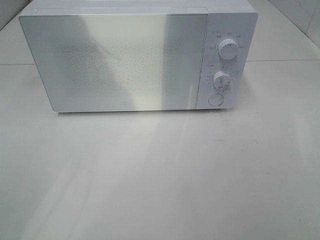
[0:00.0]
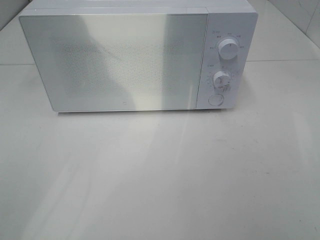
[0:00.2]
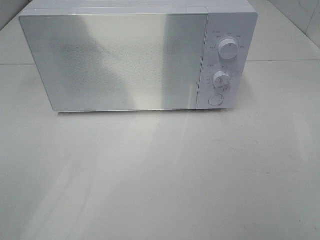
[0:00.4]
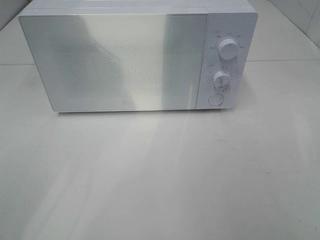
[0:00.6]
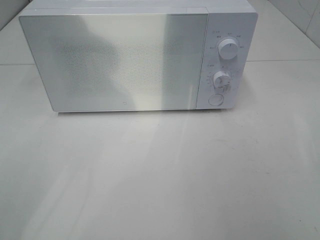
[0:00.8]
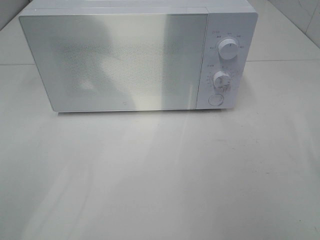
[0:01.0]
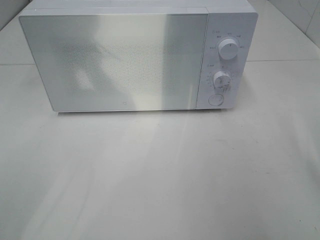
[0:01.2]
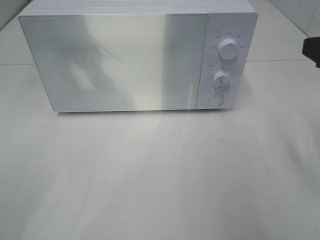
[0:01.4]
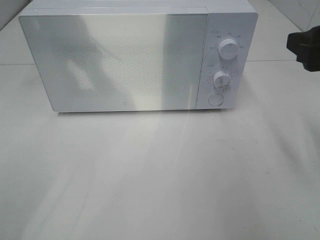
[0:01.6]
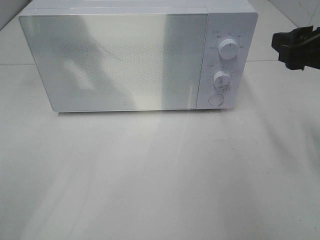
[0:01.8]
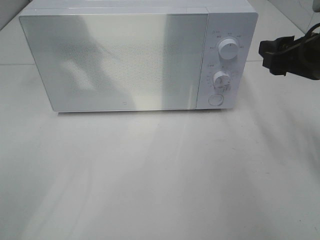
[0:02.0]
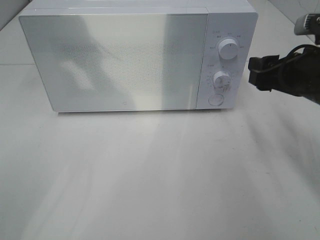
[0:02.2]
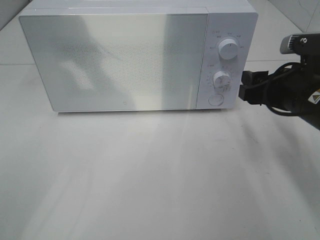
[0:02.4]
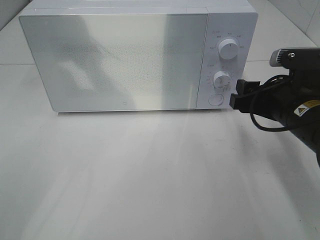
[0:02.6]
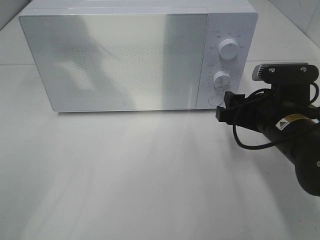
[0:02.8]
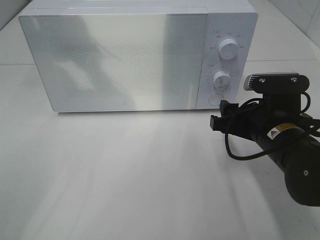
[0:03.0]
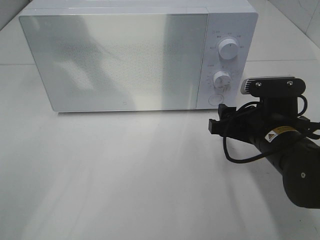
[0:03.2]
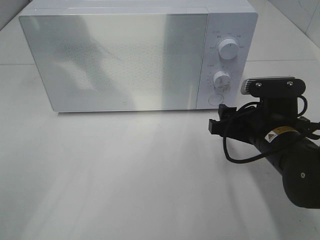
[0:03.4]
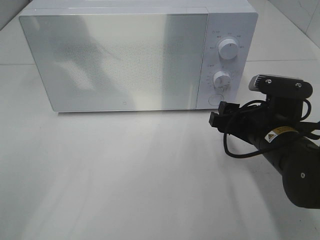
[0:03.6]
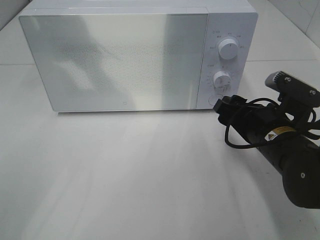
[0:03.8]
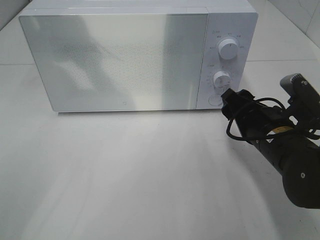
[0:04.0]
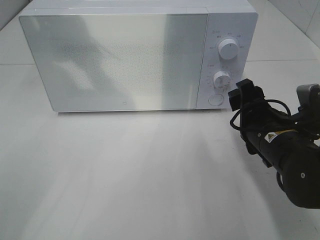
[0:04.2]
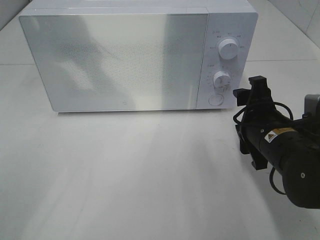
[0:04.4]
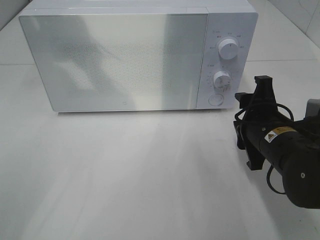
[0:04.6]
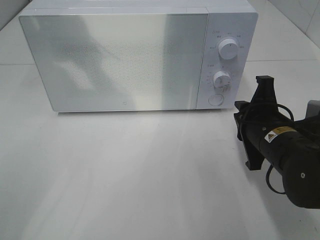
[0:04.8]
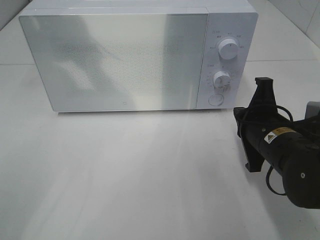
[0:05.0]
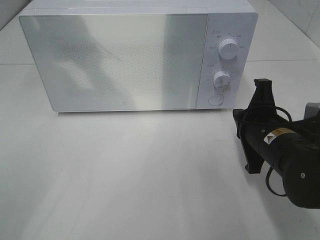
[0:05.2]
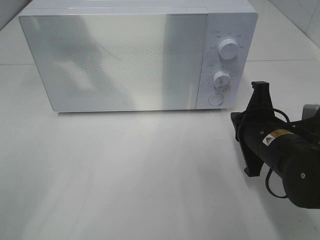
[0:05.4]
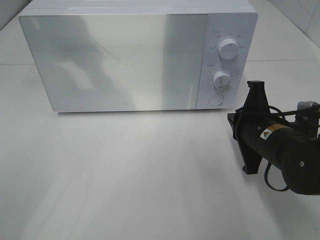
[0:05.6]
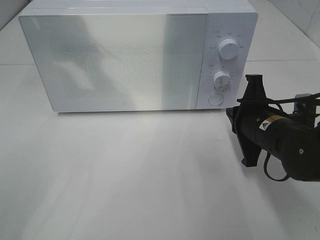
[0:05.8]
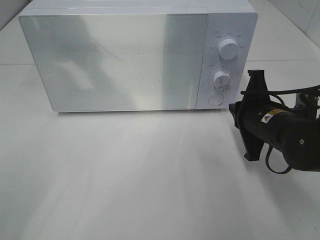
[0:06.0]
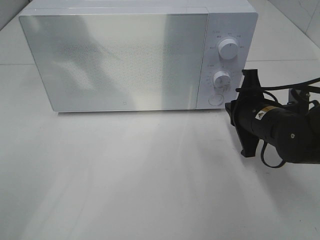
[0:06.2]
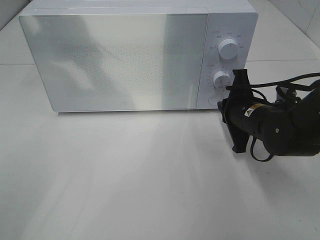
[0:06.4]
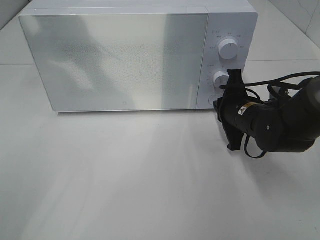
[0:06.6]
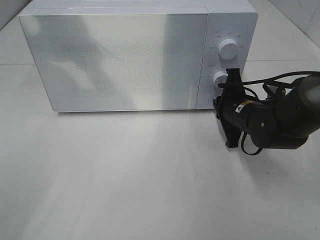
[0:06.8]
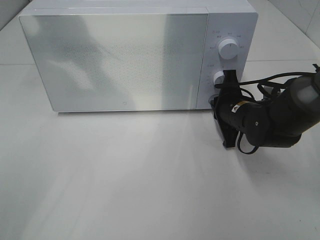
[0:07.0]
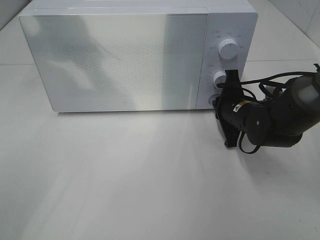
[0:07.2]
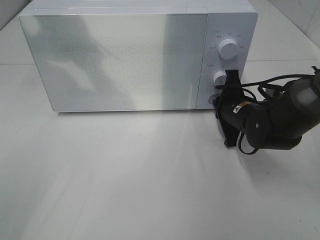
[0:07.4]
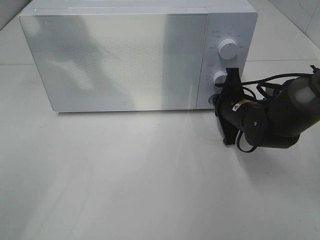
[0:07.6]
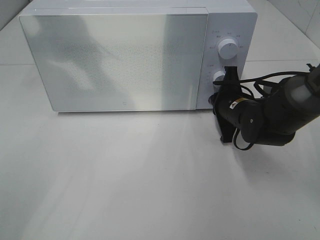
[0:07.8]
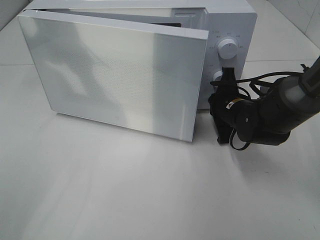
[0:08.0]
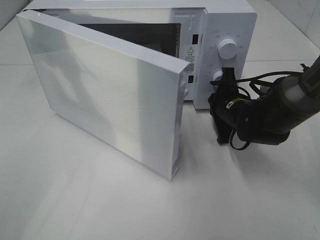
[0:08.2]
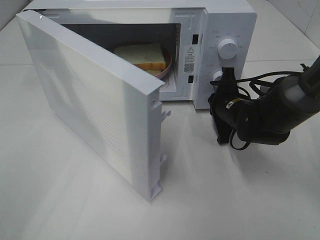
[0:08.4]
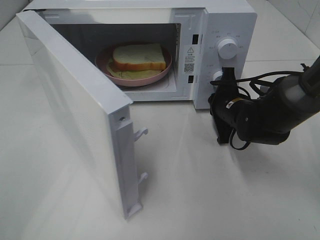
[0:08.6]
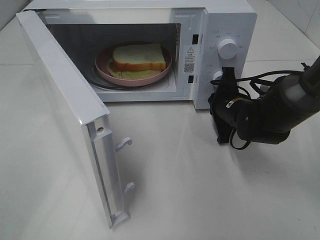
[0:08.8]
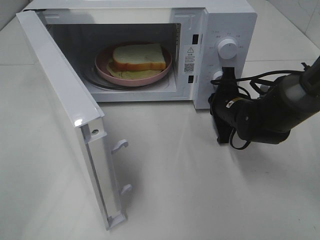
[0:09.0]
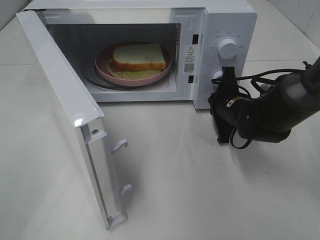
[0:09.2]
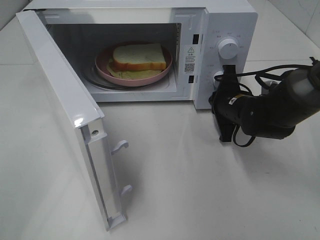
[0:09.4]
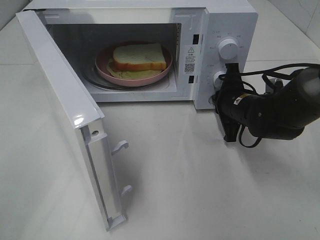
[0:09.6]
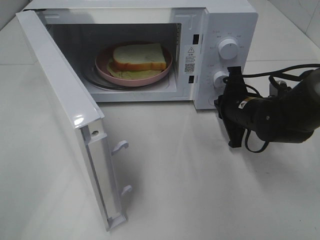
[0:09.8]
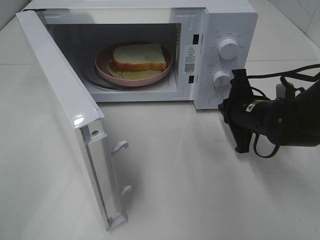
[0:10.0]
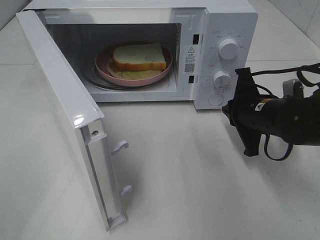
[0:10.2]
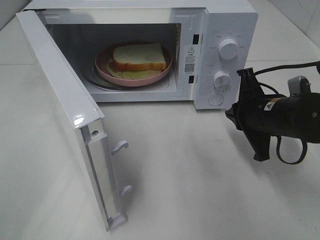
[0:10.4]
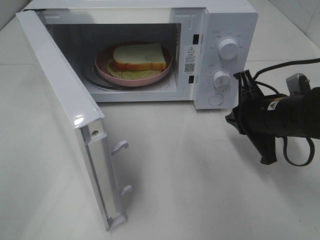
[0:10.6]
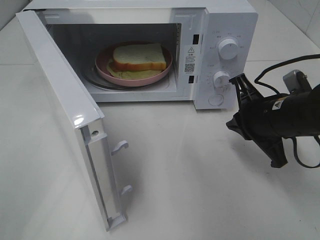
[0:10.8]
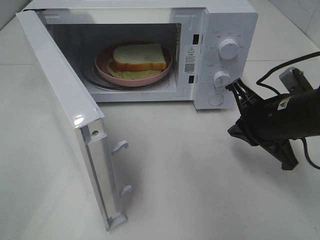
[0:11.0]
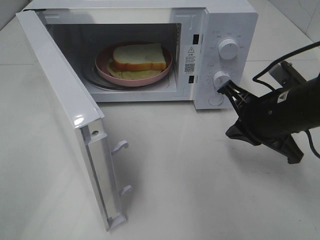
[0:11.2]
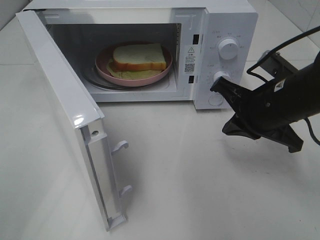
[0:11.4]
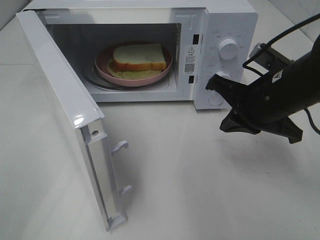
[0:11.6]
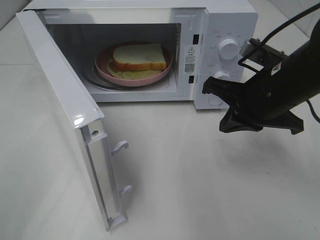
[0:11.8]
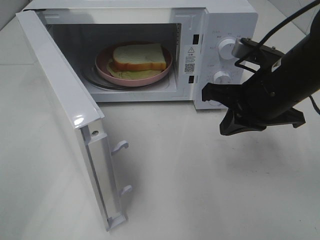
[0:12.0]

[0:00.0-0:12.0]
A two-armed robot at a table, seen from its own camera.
Task of the whole recording: Heat Sandwich.
Step, 0:00.0 to 0:10.0: Right hand: press the switch.
0:00.0 to 0:01.6: The right gripper travels forward by some 20 cm.
0:01.6 to 0:03.0: The right gripper travels downward and to the left by about 15 cm.
0:04.4 to 0:06.0: The right gripper closes up.
0:06.0 to 0:07.6: The right gripper shifts some 5 cm forward.
0:09.0 to 0:10.4: The right gripper goes approximately 10 cm backward and upward.
0:10.4 to 0:12.0: The right gripper travels upward by roughly 5 cm.

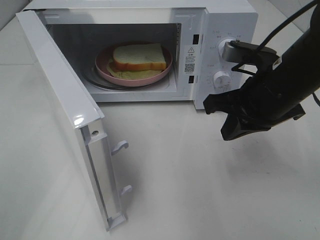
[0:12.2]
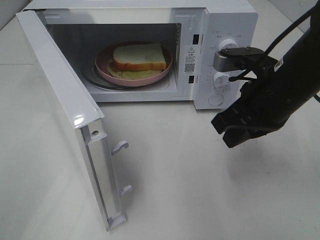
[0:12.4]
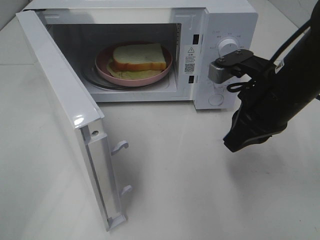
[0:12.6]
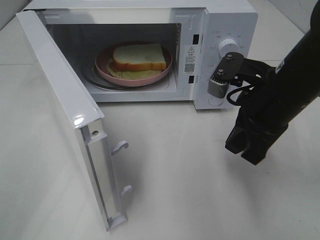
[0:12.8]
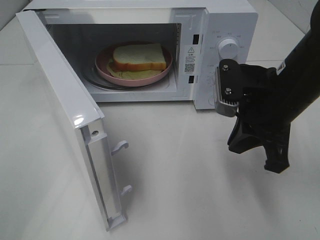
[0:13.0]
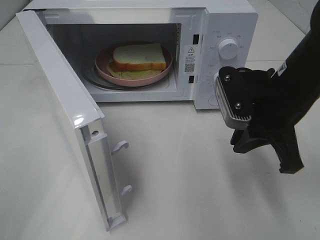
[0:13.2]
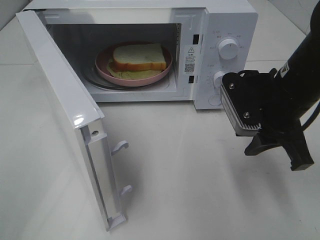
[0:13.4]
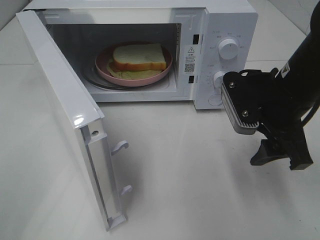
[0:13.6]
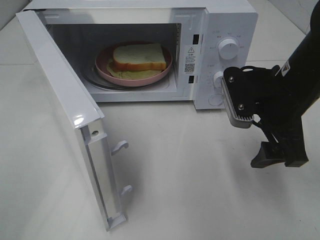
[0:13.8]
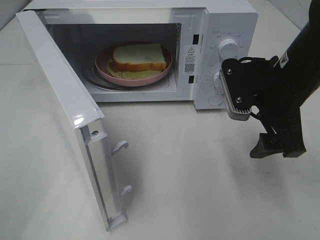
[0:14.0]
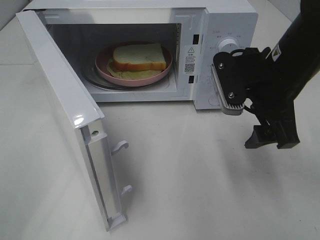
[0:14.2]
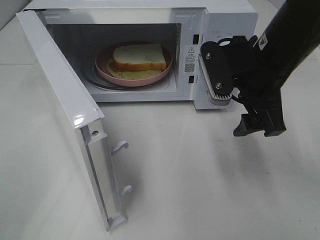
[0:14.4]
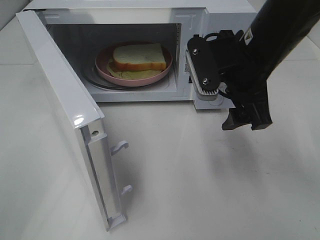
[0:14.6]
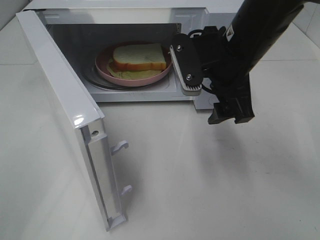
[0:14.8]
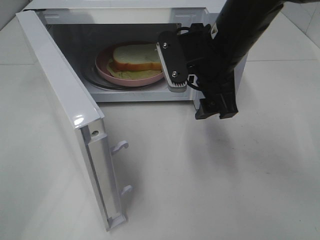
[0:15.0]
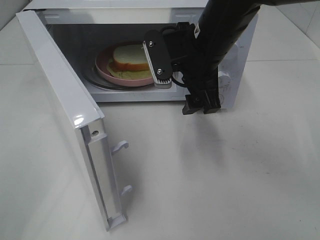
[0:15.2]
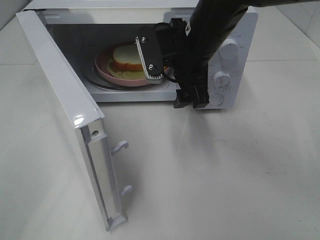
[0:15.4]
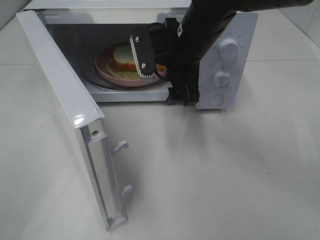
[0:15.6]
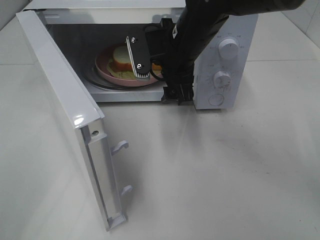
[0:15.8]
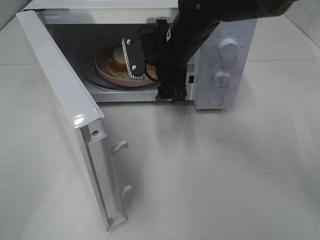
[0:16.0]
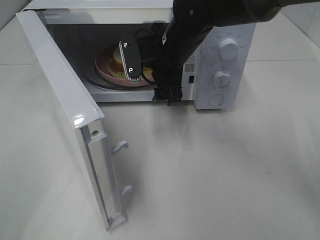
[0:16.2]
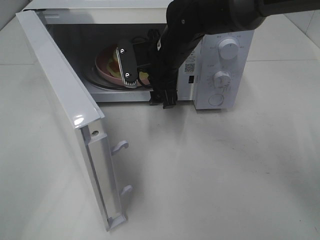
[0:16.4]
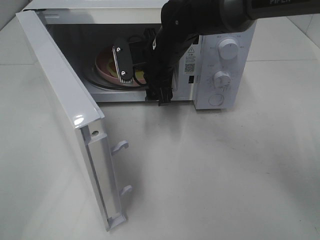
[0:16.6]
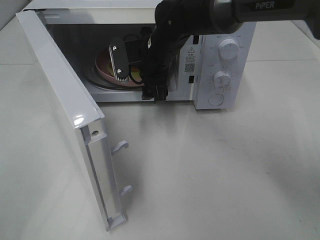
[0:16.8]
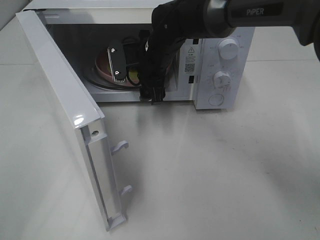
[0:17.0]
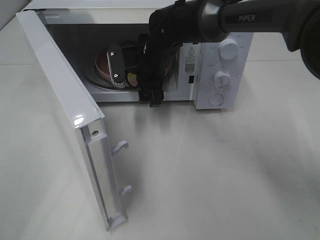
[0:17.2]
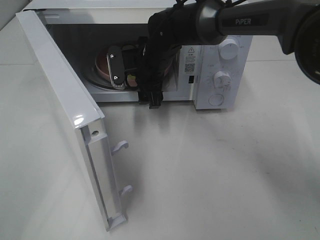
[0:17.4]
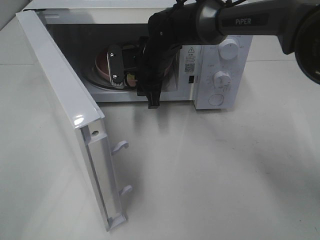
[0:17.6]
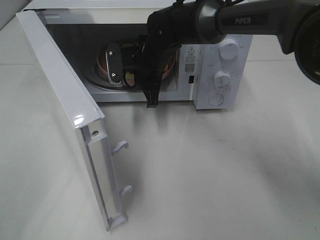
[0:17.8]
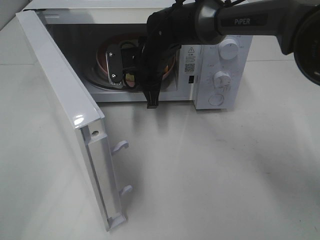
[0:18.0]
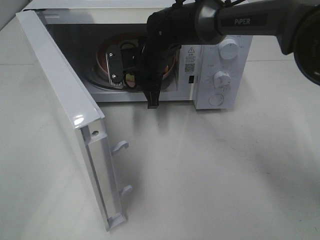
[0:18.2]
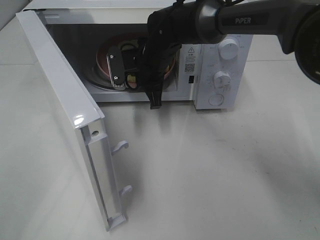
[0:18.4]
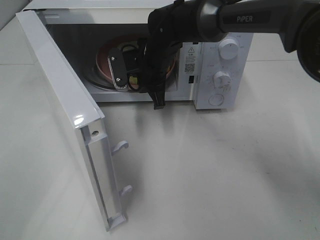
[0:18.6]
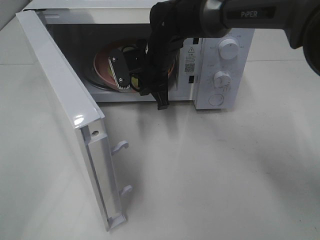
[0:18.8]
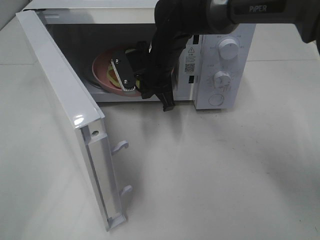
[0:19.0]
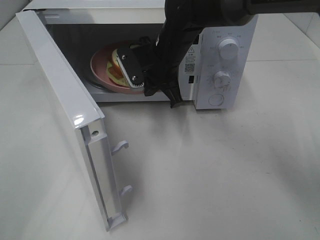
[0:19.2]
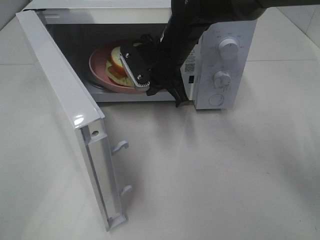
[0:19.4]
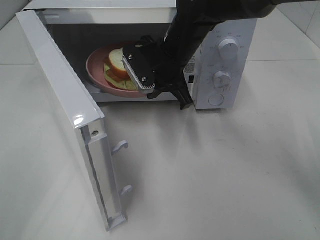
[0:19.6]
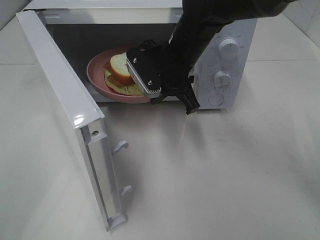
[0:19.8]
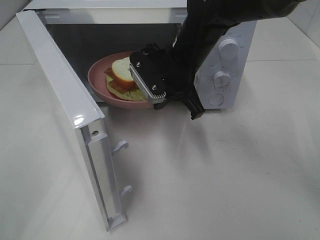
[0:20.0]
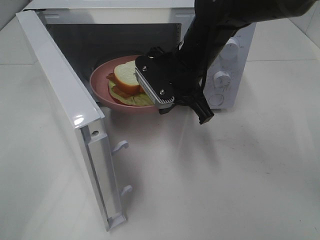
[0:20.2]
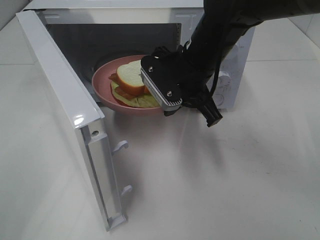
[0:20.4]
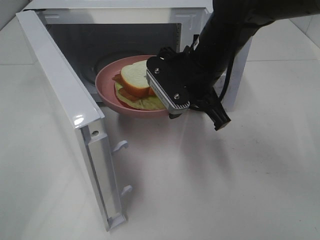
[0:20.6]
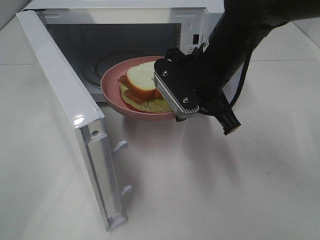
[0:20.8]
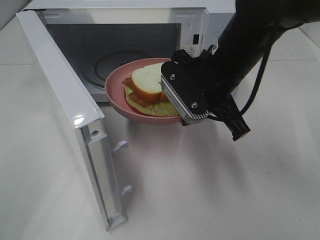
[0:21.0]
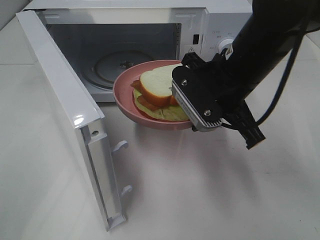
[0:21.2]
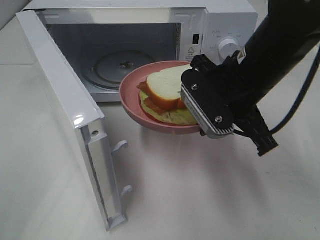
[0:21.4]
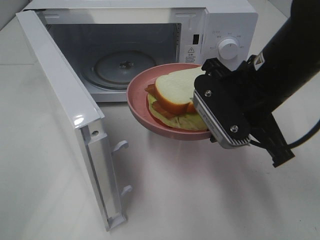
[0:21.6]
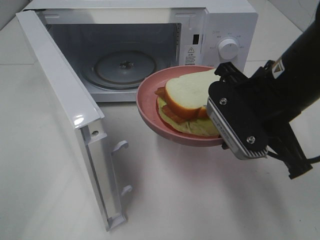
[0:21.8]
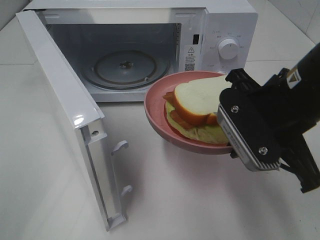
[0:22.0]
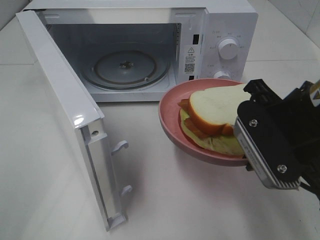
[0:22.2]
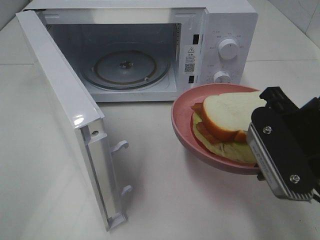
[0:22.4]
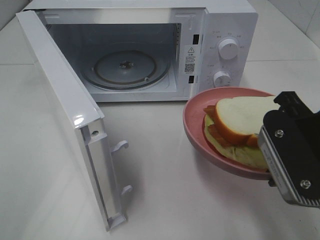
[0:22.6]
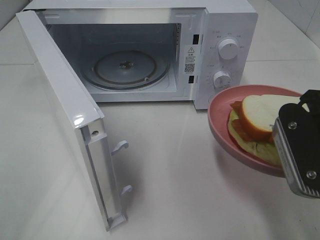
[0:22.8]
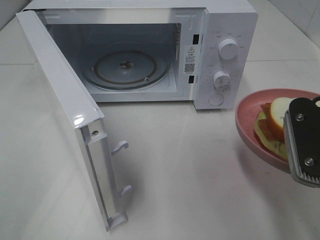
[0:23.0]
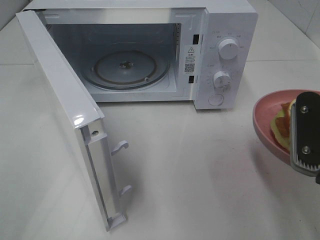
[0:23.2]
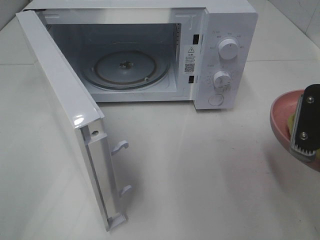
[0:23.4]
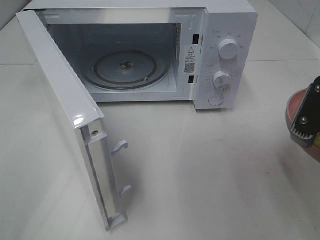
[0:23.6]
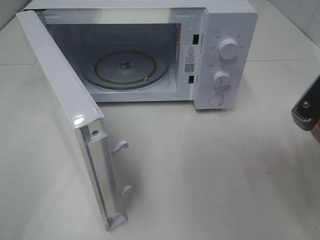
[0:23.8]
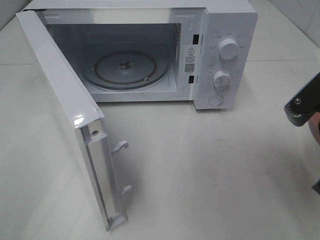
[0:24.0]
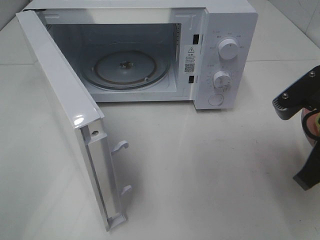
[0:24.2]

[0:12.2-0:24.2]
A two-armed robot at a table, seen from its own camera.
Task of the whole recording: Heat Sandwich.
Step, 0:12.2 to 0:18.0: Right hand: grab the plate with the sandwich.
0:12.2 to 0:13.8: The right gripper opens its fingers.
0:13.8 to 0:15.2: The right gripper shifts some 15 cm to the left and forward.
0:15.2 to 0:16.6: The right gripper shifts roughly 10 cm forward, to the left and downward.
0:16.6 to 0:18.2: The right gripper closes its fingers.
0:18.2 to 0:19.8: The right gripper heads backward, covering roughly 5 cm.
0:19.8 to 0:21.2: The right gripper moves backward and to the right, roughly 10 cm.
0:21.2 to 0:22.6: The right gripper goes roughly 15 cm backward and to the right.
